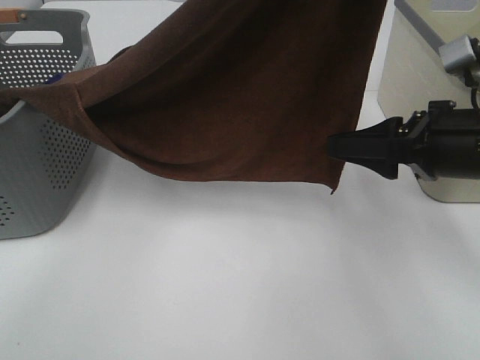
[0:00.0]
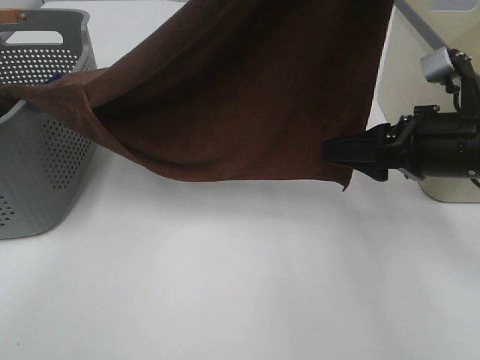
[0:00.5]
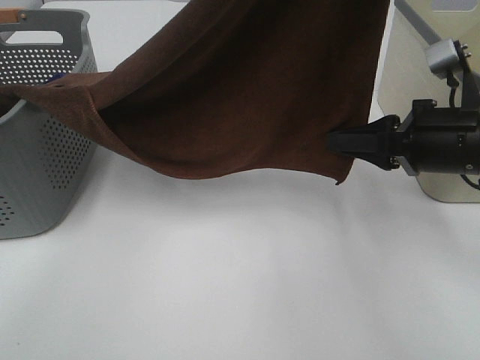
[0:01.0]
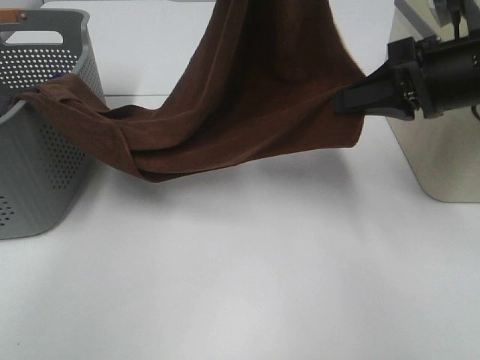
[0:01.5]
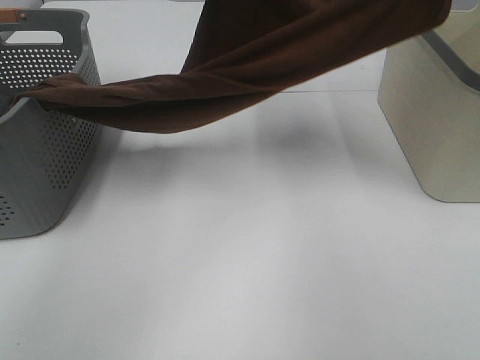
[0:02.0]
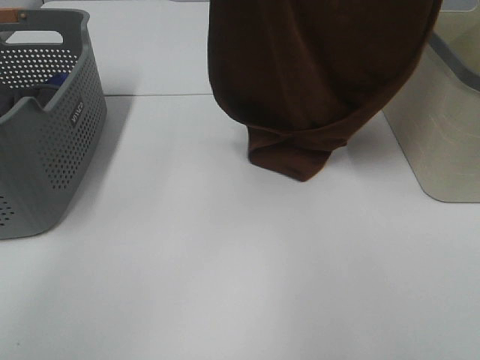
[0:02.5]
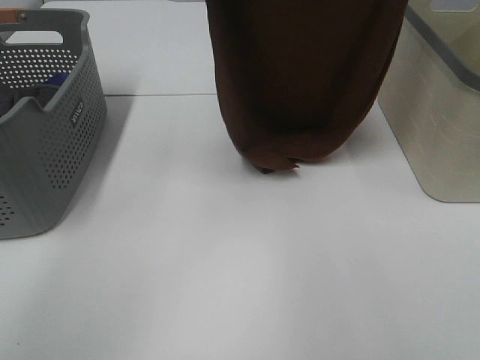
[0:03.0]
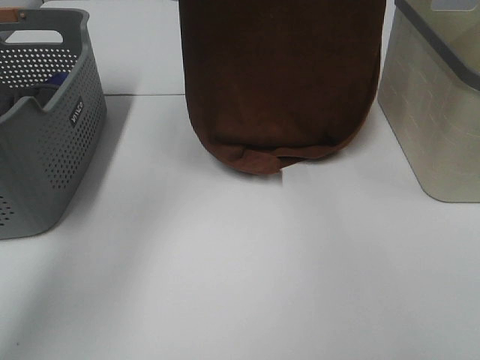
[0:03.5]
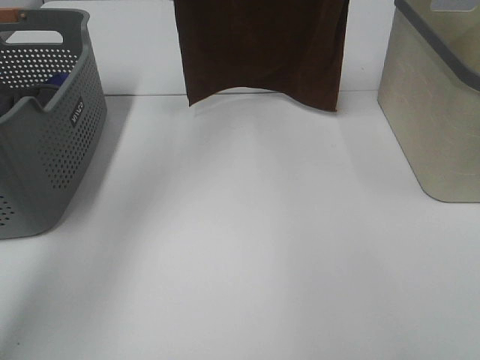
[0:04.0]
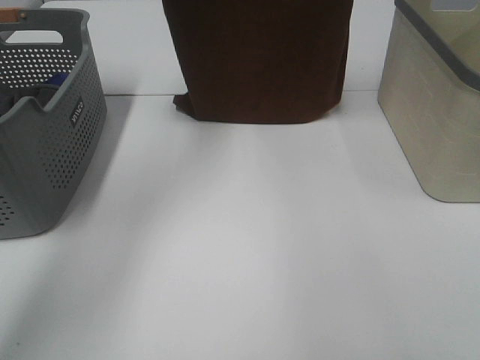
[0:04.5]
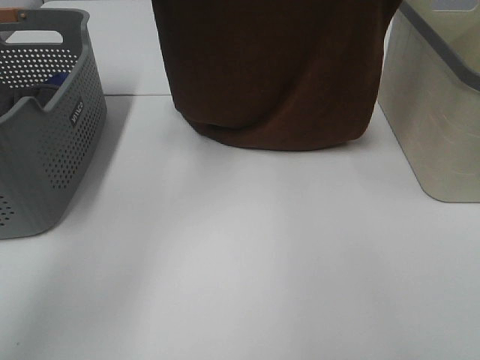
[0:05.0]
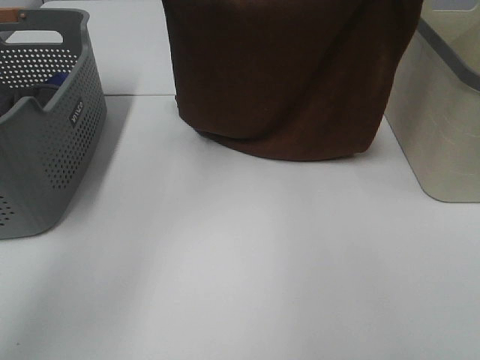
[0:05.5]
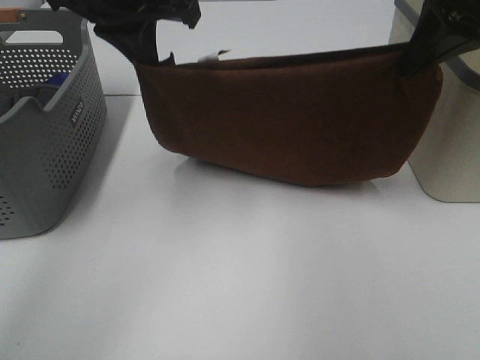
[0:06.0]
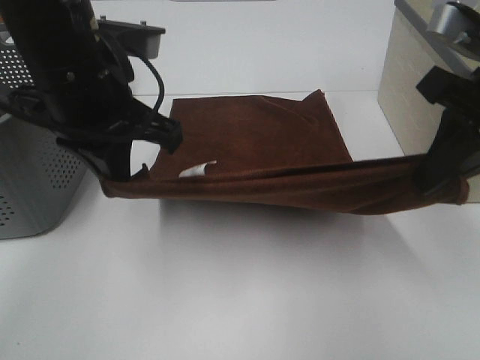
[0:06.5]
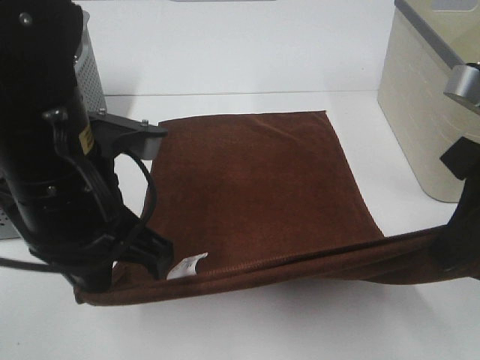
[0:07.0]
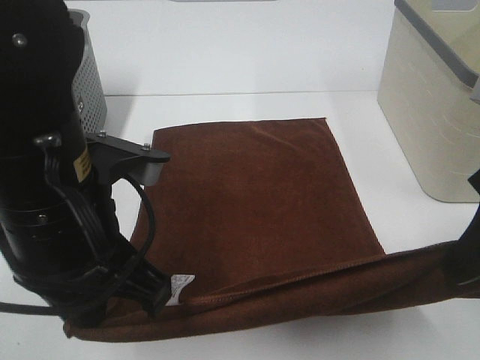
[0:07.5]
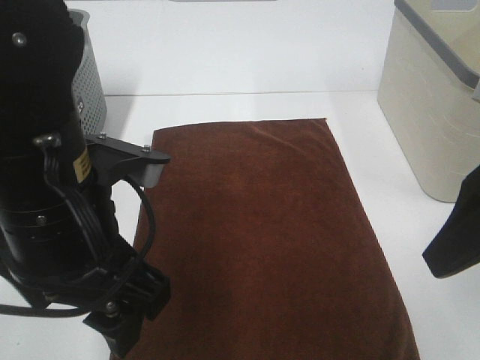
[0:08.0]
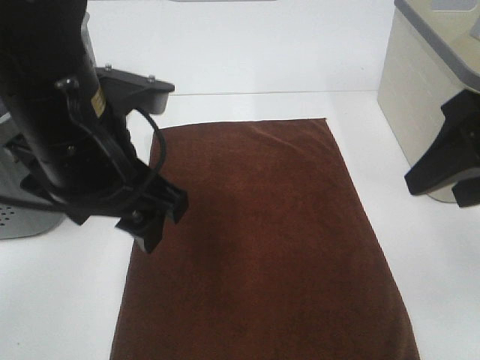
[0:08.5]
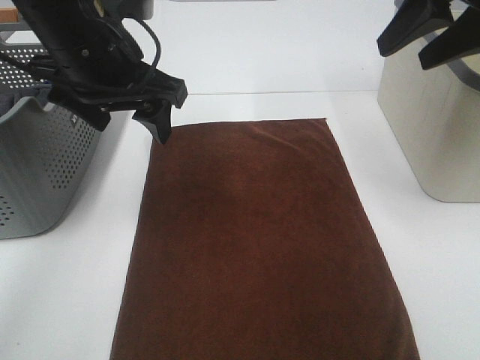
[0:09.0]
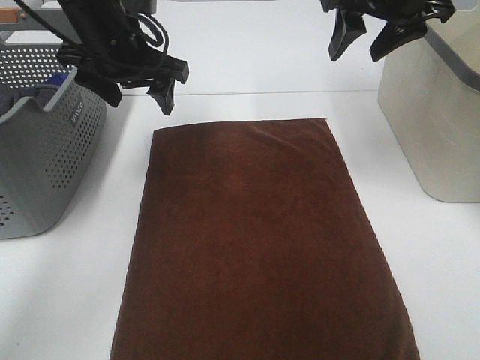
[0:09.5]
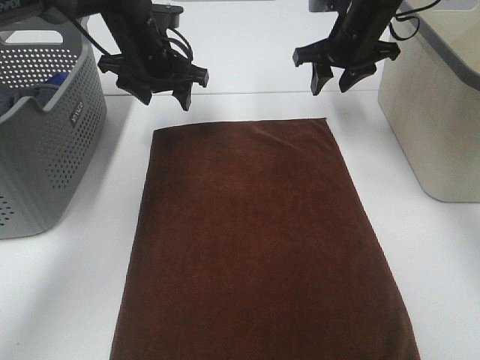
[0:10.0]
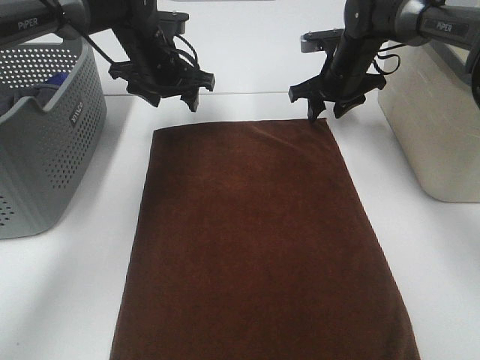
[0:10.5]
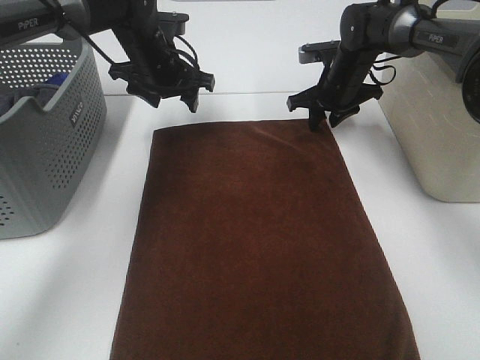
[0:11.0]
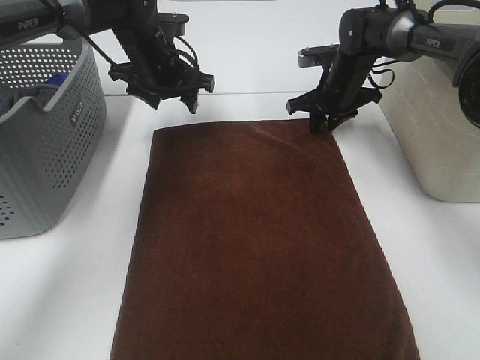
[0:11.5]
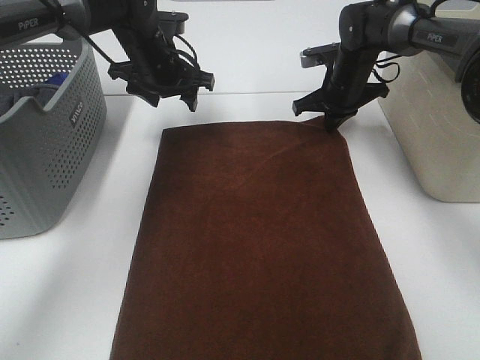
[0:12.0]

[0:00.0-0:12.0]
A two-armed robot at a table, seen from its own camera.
Task of the whole recording: Remove the towel and place it.
Step, 0:00.0 to 0:03.5: Left hand: spread the brown towel flat on the table.
Step, 0:00.0 to 0:03.5: Right hand: spread the brown towel flat on the table.
Step, 0:04.0 to 0:09.5: Left hand:adjust the brown towel.
Step, 0:04.0 to 0:09.5: Right hand:adjust the brown towel.
0:00.0 to 0:02.0: The right gripper moves upward and forward, roughly 20 cm, and closes its fingers; the left gripper goes about 20 cm forward and downward.
0:02.0 to 0:04.0: The right gripper goes roughly 15 cm upward and forward, while the left gripper heads to the left, upward and forward, covering some 15 cm.
0:04.0 to 0:06.0: Both grippers travel together downward and backward, about 20 cm.
0:06.0 to 0:08.0: The left gripper is displaced backward and downward by about 20 cm, and opens up. The right gripper is displaced backward by some 15 cm, and opens up.
0:08.0 to 0:10.0: Both grippers move forward, some 35 cm.
0:10.0 to 0:12.0: The right gripper heads downward, covering some 10 cm, and closes up.

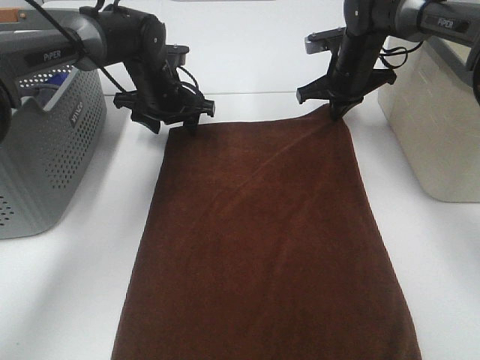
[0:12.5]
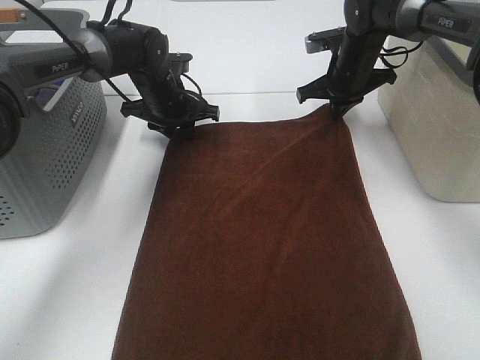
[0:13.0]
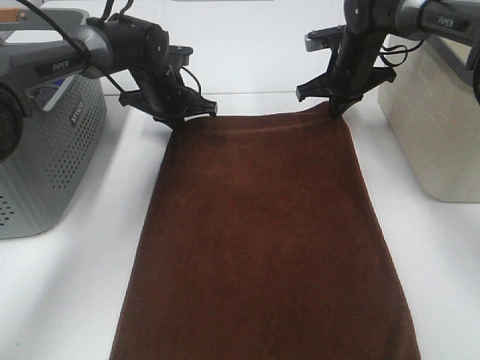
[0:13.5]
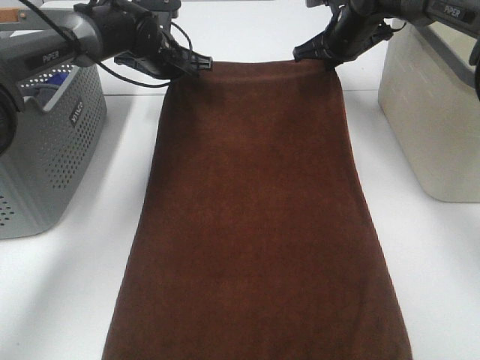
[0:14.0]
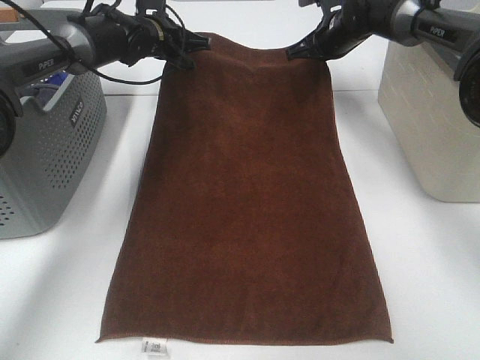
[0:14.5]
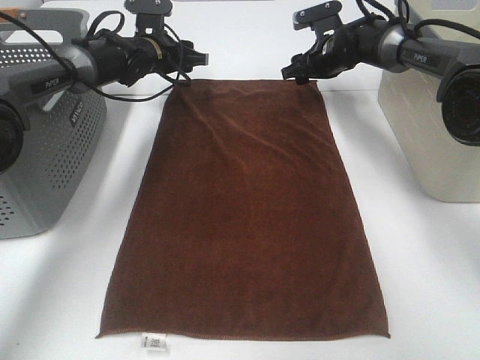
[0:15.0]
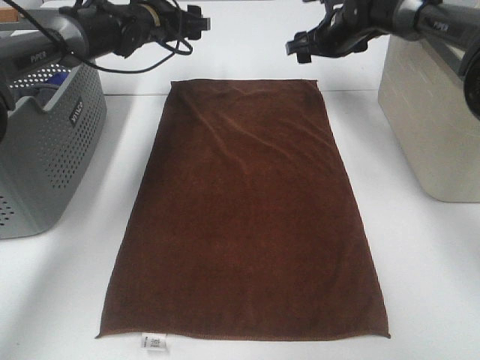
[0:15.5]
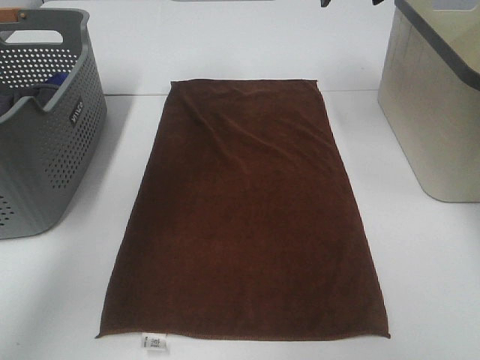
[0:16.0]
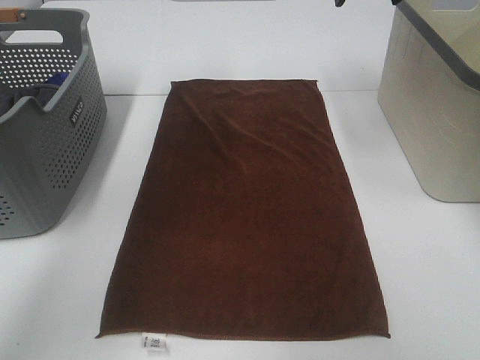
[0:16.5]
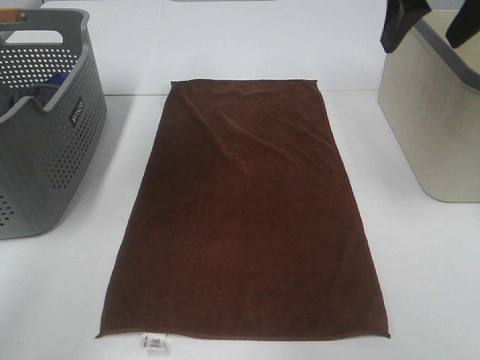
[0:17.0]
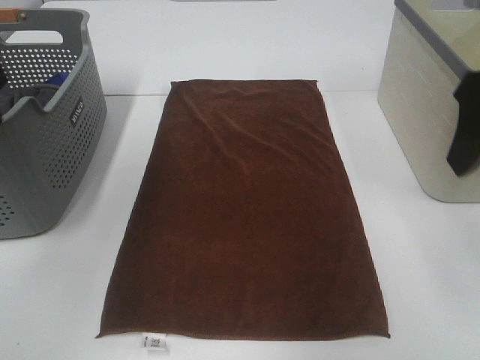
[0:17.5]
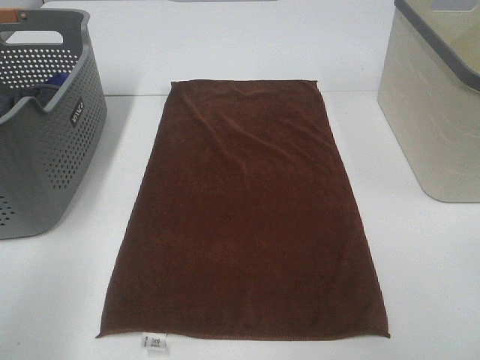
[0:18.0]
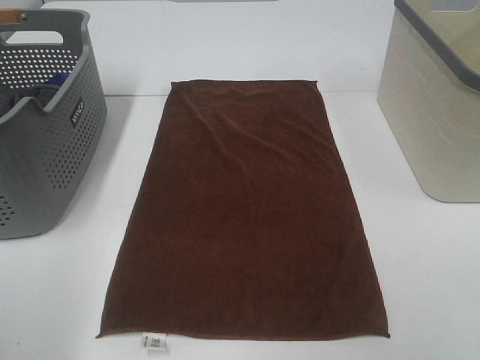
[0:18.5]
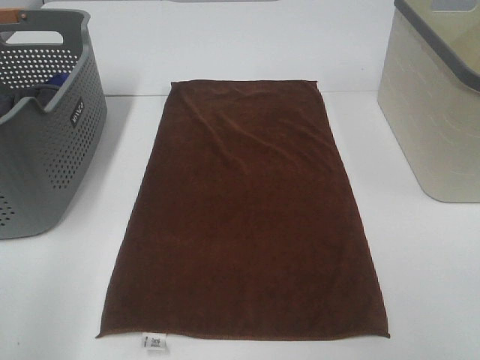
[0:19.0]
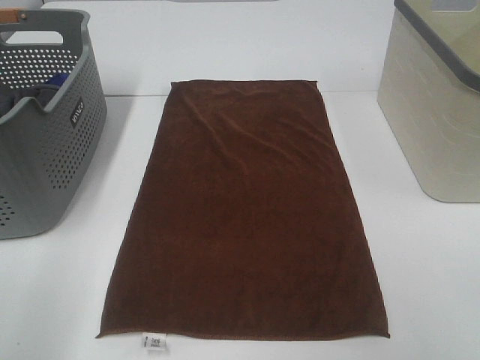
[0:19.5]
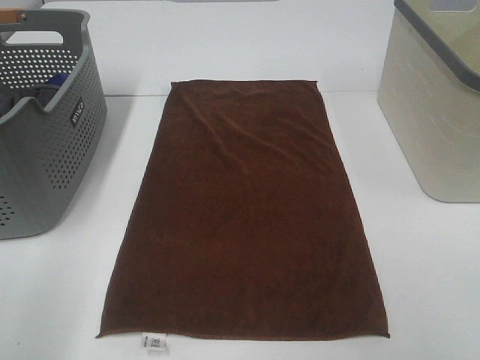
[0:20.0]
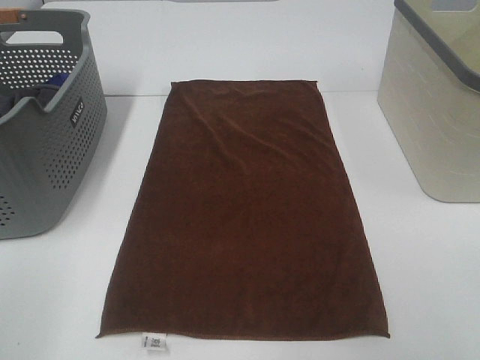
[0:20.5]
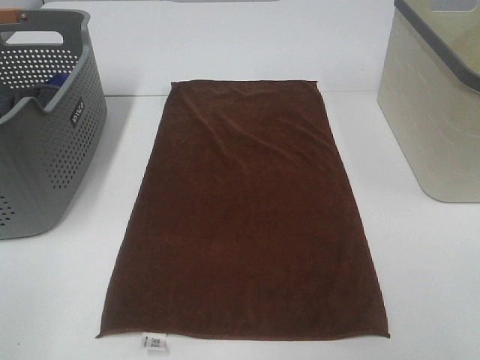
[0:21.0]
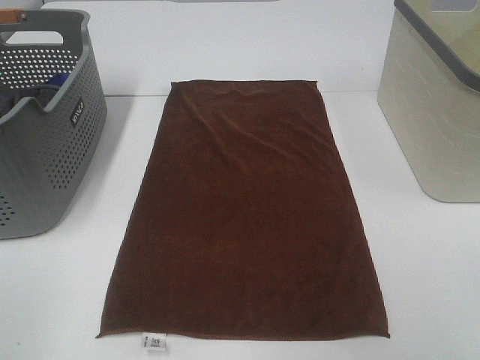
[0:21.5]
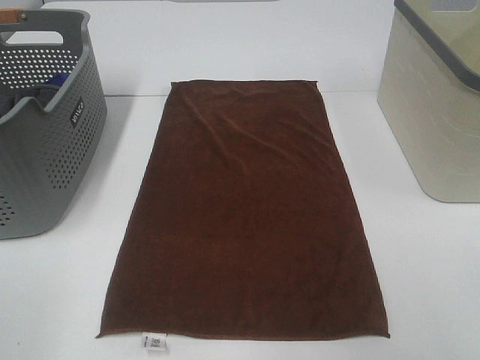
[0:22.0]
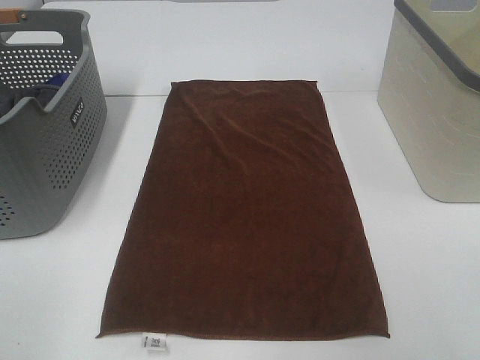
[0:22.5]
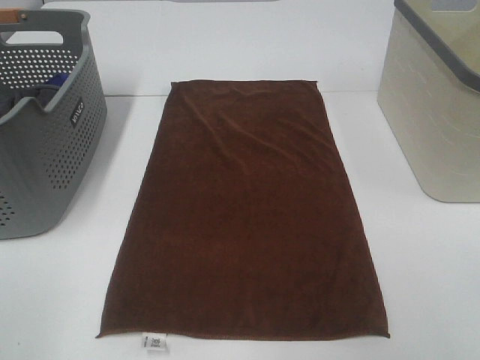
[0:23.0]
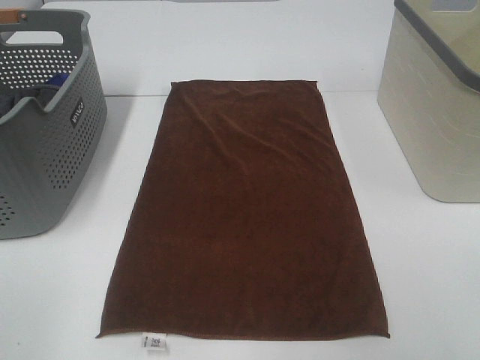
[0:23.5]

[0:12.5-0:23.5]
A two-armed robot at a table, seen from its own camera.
Task of the whole recording: Remove the towel and place it.
0:12.5 to 0:14.5: The right gripper changes place by some 5 cm. The left gripper heads forward, covering some 5 cm, and closes up.
0:14.5 to 0:16.0: Both grippers move upward and backward, approximately 15 cm. The left gripper opens its fingers; the right gripper opens.
0:16.0 to 0:18.0: The left gripper heads backward and to the left, covering approximately 40 cm, while the right gripper travels backward by some 40 cm.
0:21.5 to 0:23.5: Both grippers stay put.

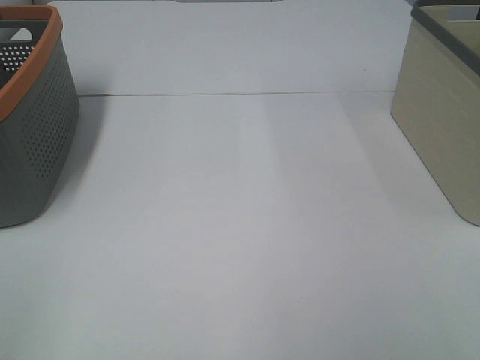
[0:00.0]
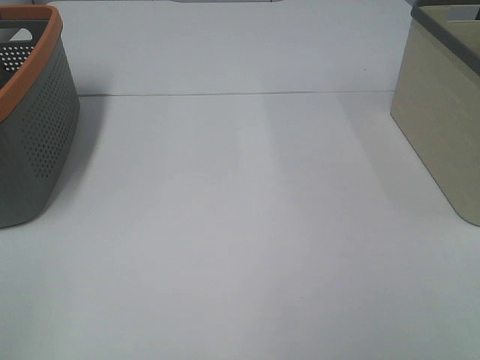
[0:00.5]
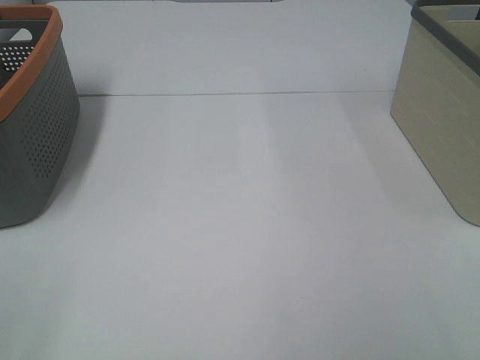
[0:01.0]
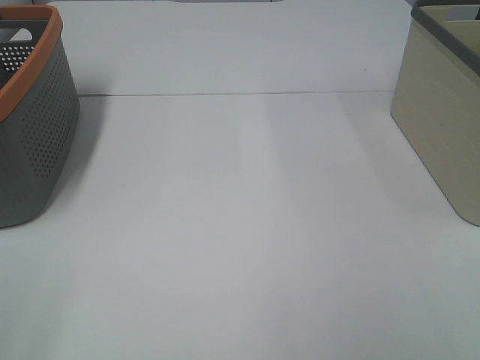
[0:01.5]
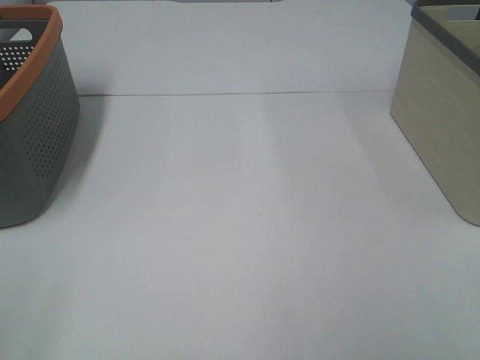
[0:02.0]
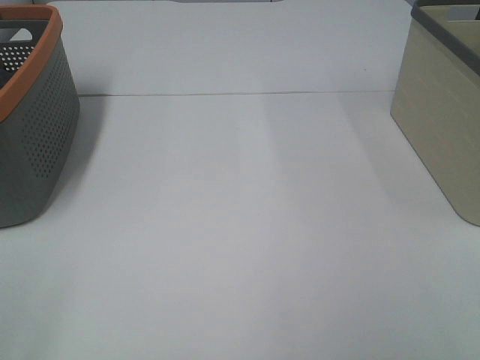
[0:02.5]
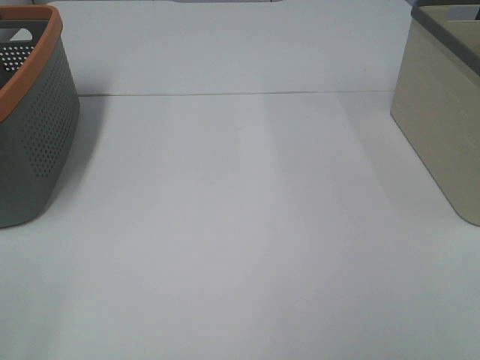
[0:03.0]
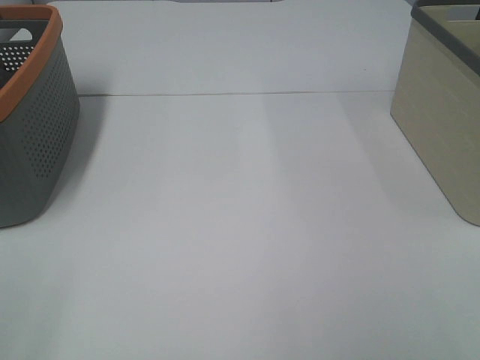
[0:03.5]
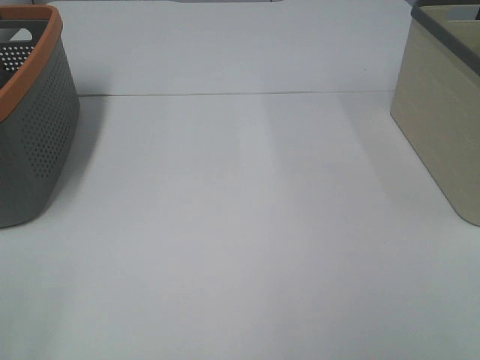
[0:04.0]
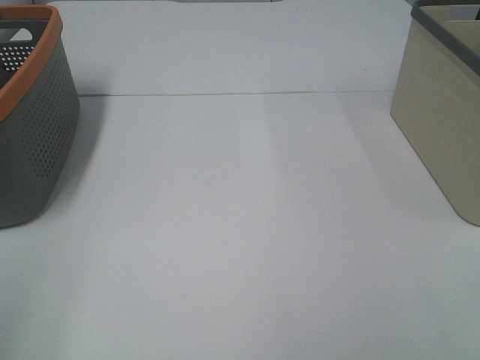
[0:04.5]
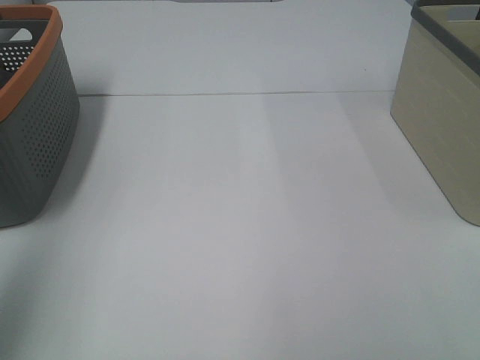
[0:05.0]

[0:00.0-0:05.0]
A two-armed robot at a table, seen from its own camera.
Task of the whole recording: Remove the towel and place it.
0:02.5 to 0:05.0: The left gripper shifts roughly 20 cm forward and upward.
